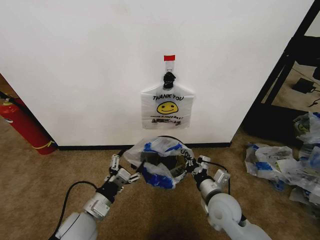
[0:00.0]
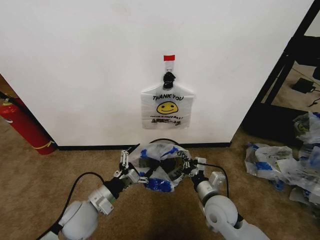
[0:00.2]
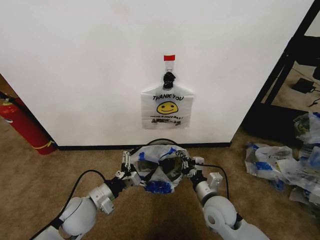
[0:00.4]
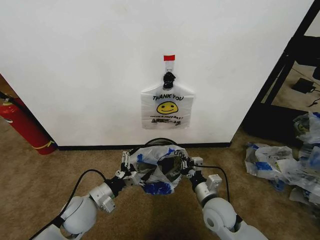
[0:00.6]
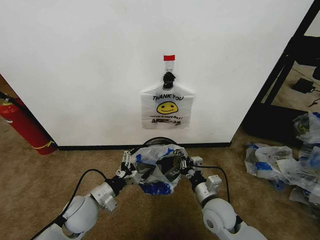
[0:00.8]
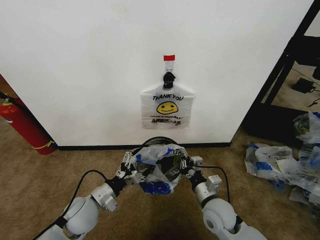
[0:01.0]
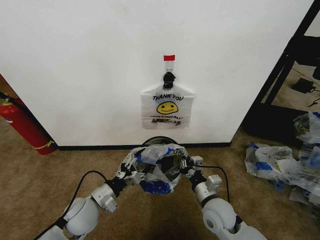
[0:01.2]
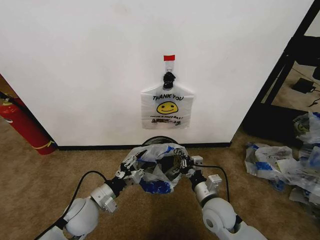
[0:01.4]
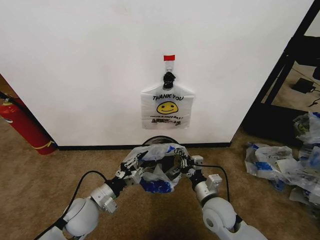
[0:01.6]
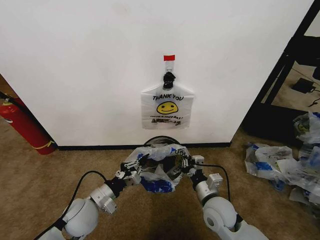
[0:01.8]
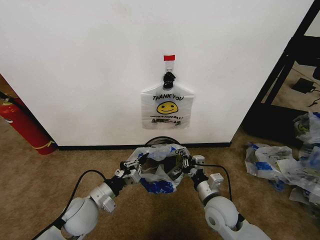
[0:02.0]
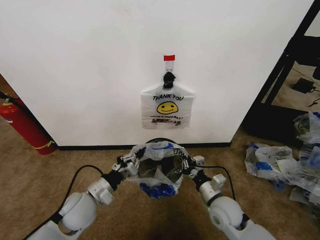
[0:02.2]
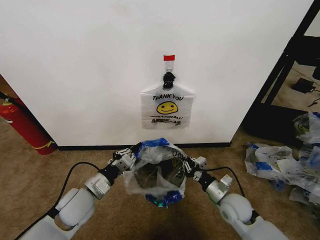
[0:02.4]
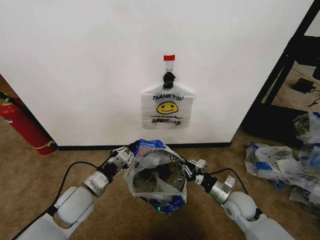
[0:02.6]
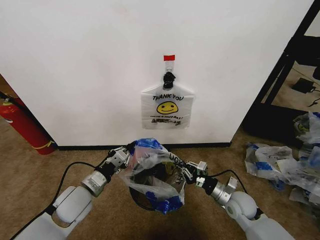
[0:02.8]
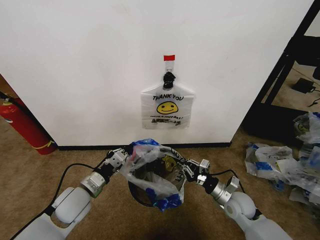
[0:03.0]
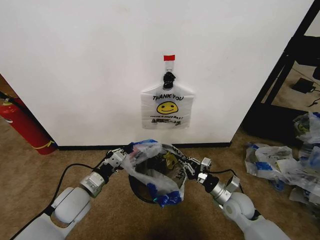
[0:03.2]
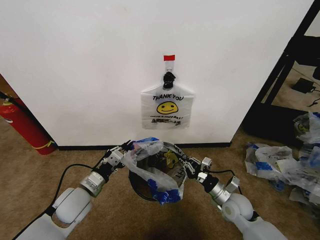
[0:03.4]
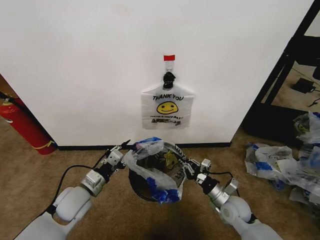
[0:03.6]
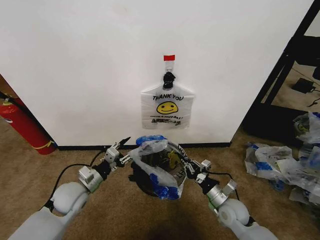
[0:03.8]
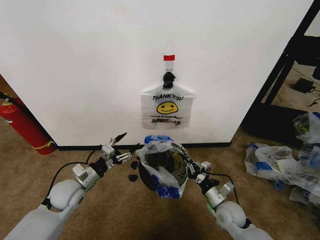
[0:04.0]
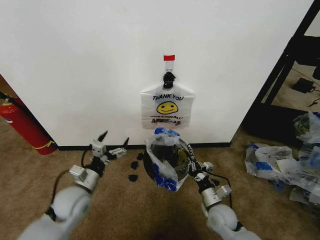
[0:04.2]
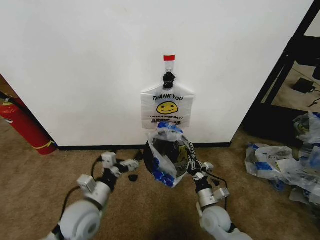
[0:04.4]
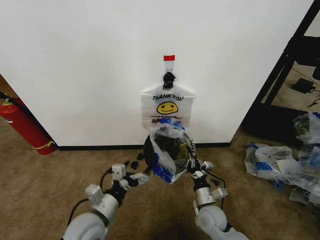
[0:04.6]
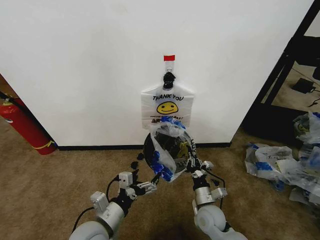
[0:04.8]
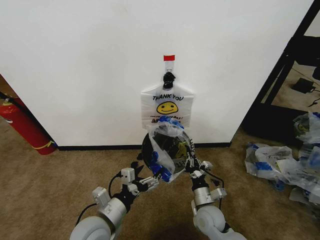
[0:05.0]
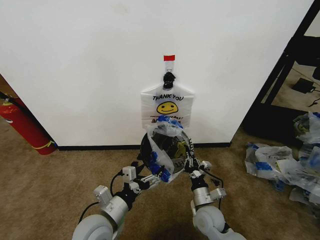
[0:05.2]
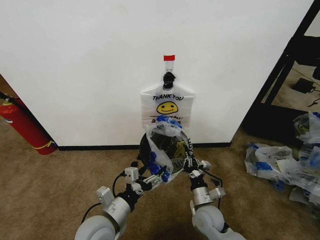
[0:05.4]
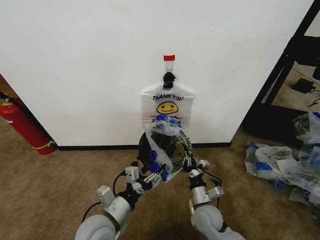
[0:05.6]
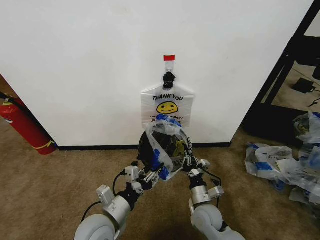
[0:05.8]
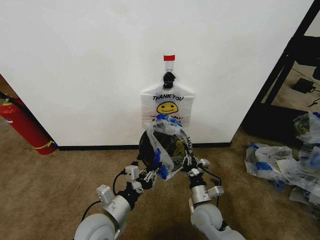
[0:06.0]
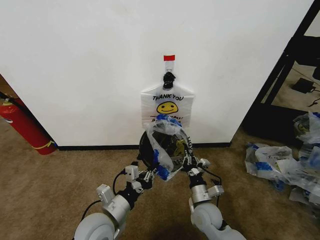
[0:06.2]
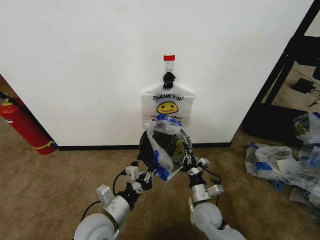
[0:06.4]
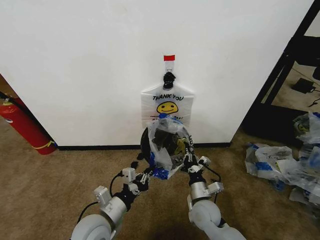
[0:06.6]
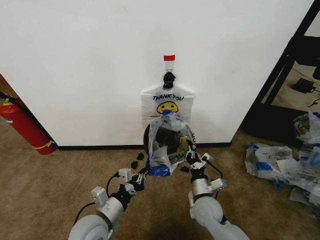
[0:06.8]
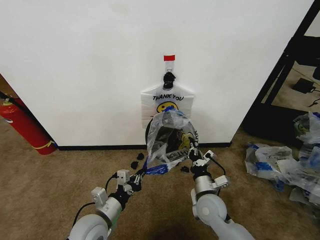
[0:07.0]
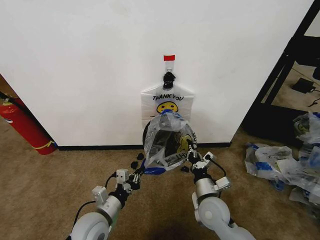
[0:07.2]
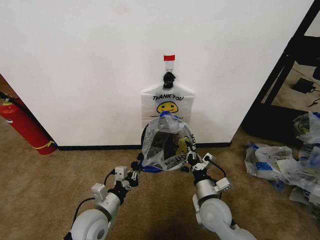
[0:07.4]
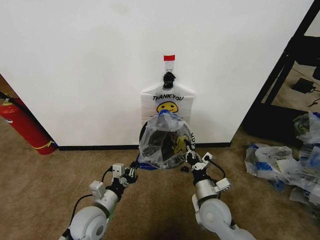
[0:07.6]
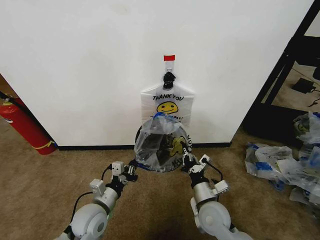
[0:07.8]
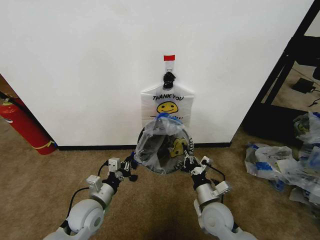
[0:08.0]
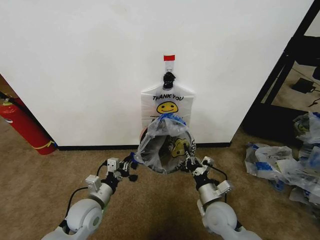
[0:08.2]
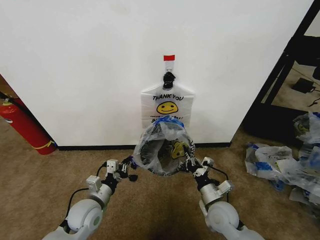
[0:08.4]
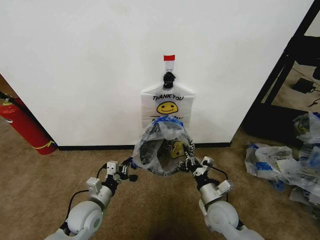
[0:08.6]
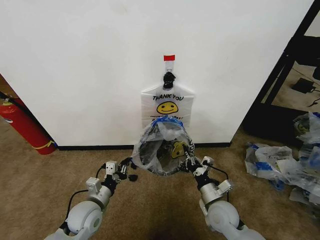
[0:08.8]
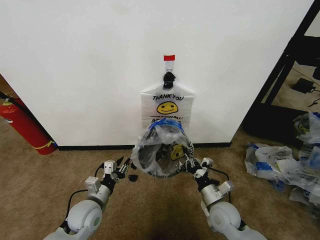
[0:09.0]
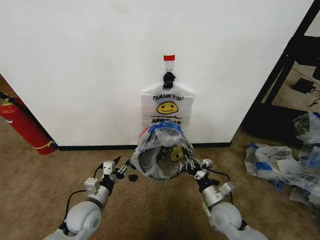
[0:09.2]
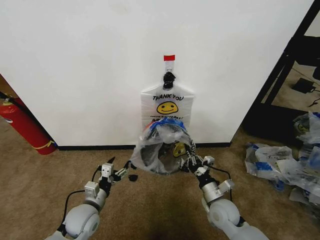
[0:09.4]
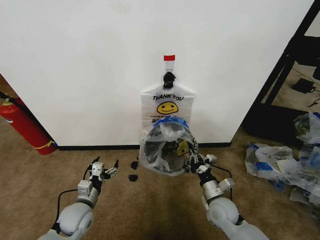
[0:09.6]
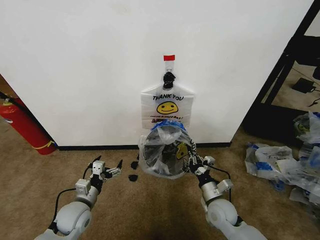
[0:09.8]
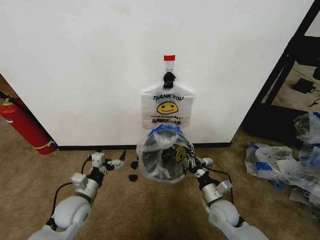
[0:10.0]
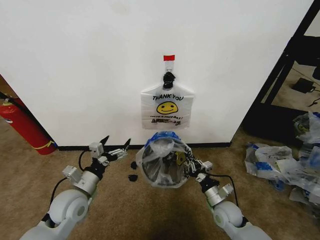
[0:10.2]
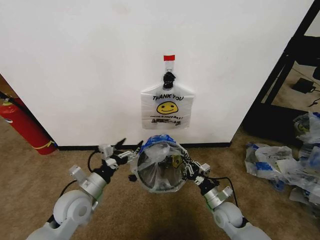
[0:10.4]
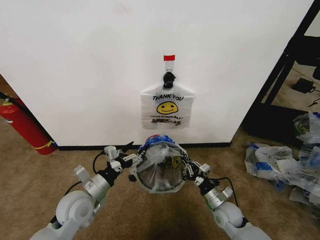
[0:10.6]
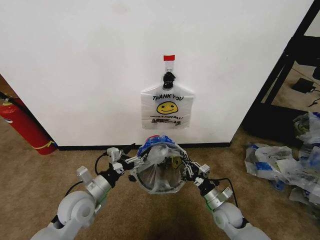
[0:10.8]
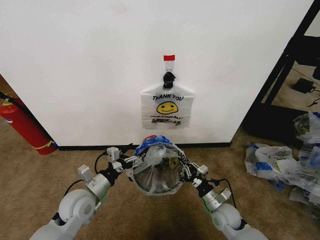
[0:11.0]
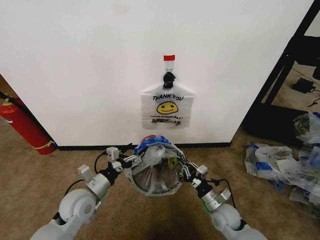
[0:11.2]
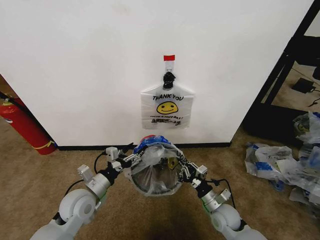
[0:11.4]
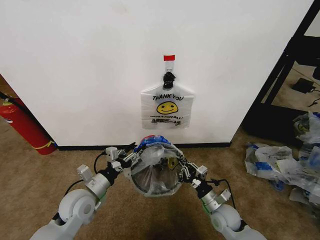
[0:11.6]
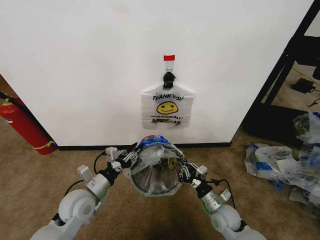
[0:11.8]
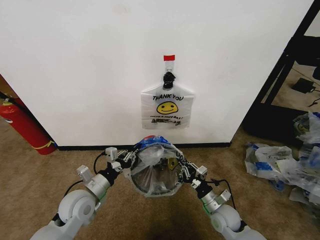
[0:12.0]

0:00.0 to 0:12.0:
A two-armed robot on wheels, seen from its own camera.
Task of the whole recording: Pick up the garbage bag from the wall and place it over the trash bin.
0:00.0 to 0:01.6: The left gripper closes up.
0:01.6 to 0:03.0: The right gripper goes approximately 10 cm to the right.
0:03.0 to 0:04.4: The right gripper travels to the left by some 10 cm, while the left gripper shifts by some 5 cm, and opens its fingers.
0:04.4 to 0:06.0: The left gripper changes place by roughly 5 cm, and closes up.
0:06.0 to 0:07.6: The left gripper shifts by roughly 10 cm, while the right gripper is displaced upward by about 5 cm.
0:07.6 to 0:09.0: The right gripper changes place by approximately 5 cm.
0:09.0 to 0:10.4: The left gripper heads upward, covering about 5 cm, and opens; the right gripper travels downward by some 5 cm.
0:10.4 to 0:12.0: The left gripper closes.

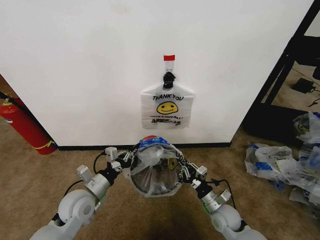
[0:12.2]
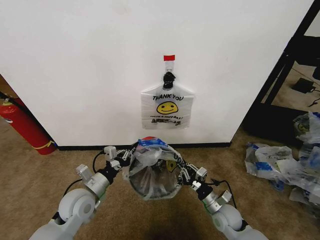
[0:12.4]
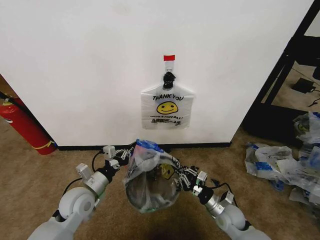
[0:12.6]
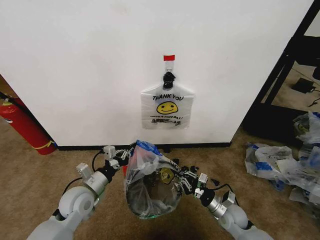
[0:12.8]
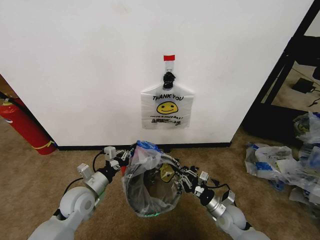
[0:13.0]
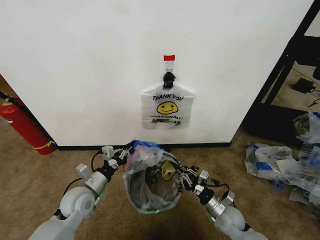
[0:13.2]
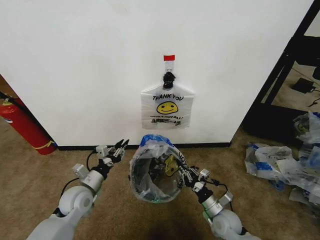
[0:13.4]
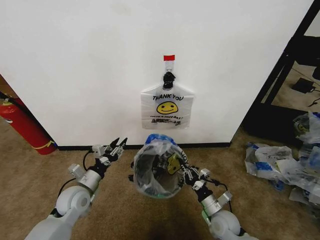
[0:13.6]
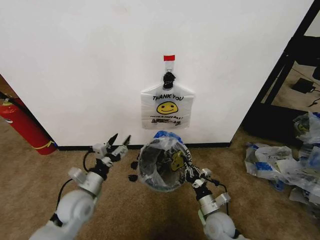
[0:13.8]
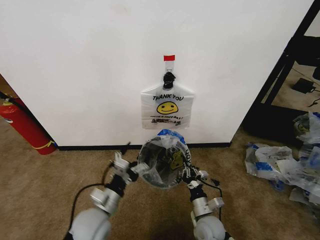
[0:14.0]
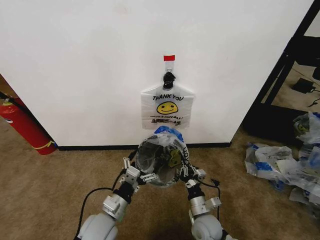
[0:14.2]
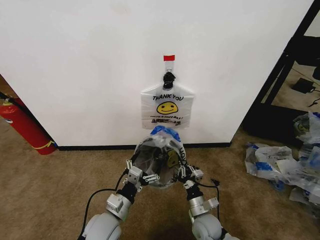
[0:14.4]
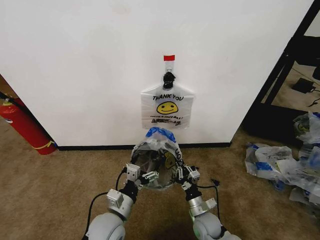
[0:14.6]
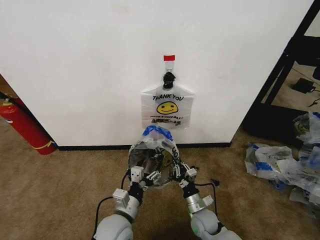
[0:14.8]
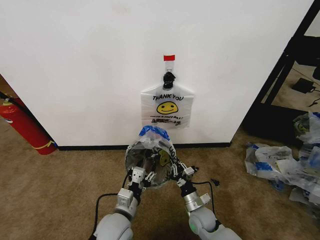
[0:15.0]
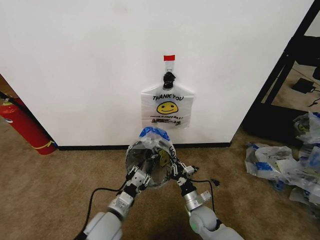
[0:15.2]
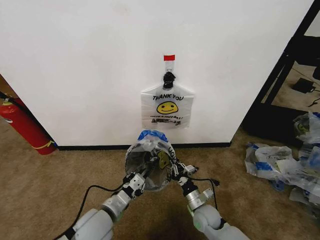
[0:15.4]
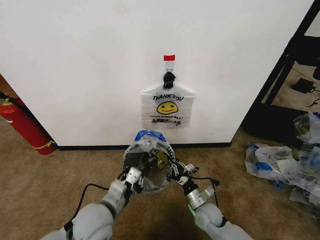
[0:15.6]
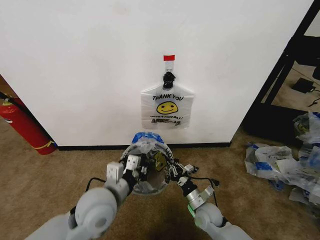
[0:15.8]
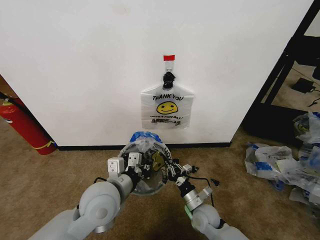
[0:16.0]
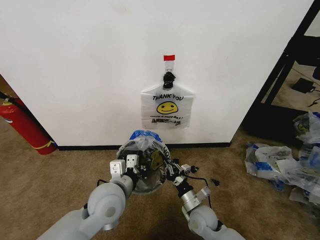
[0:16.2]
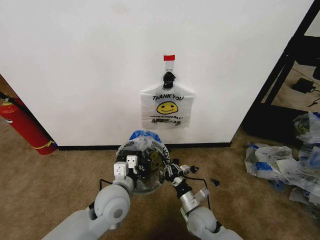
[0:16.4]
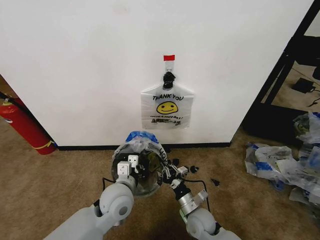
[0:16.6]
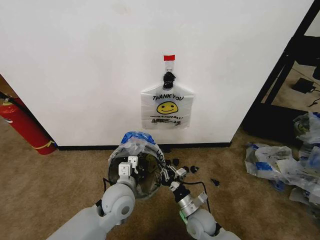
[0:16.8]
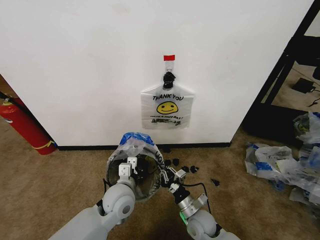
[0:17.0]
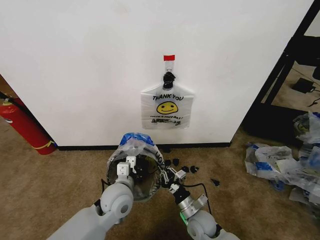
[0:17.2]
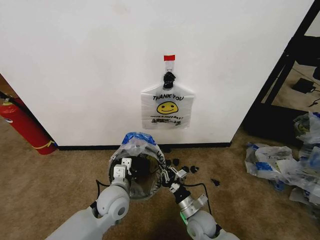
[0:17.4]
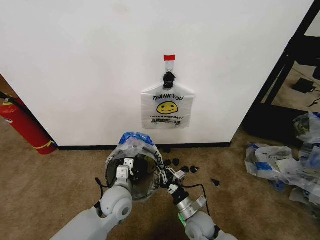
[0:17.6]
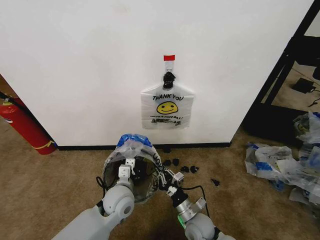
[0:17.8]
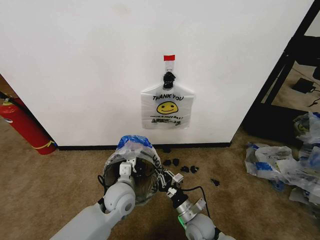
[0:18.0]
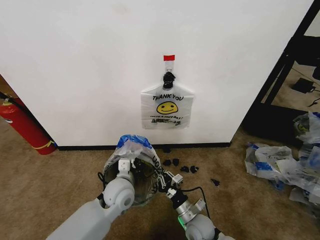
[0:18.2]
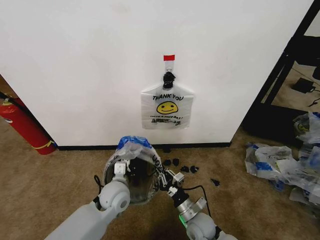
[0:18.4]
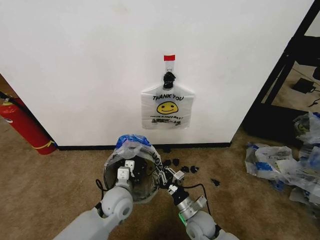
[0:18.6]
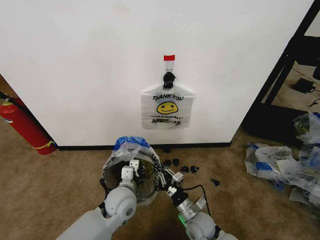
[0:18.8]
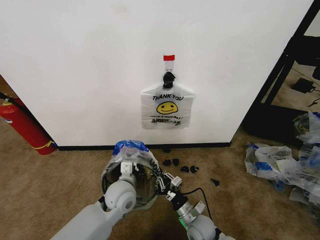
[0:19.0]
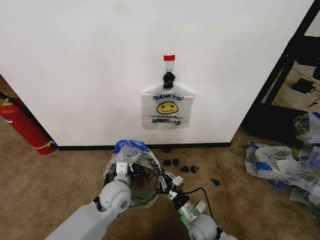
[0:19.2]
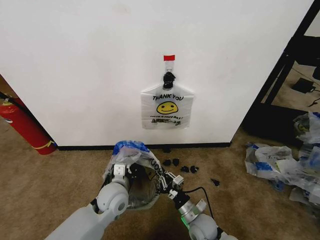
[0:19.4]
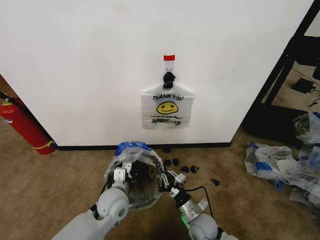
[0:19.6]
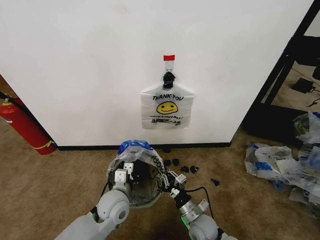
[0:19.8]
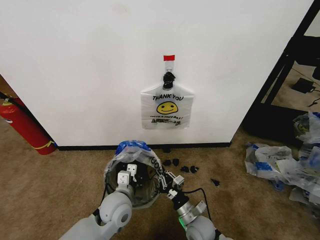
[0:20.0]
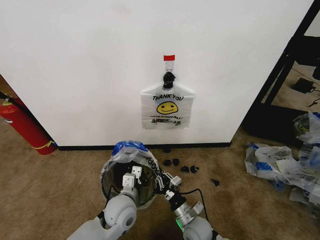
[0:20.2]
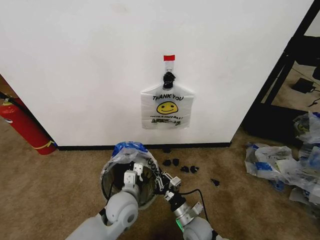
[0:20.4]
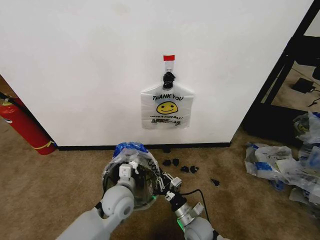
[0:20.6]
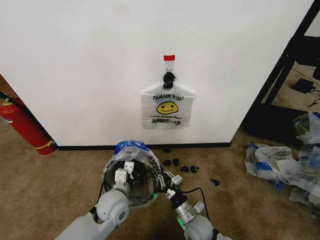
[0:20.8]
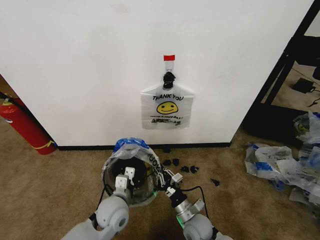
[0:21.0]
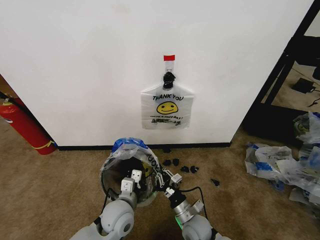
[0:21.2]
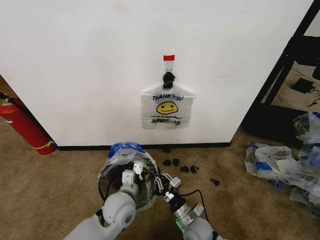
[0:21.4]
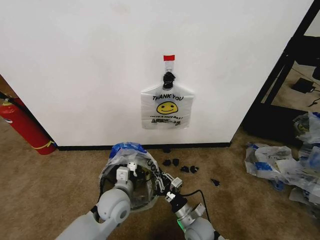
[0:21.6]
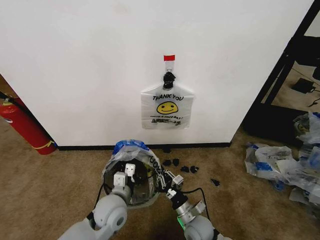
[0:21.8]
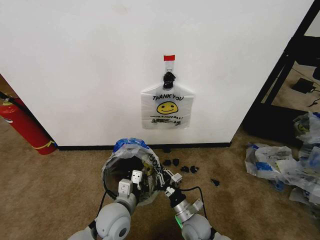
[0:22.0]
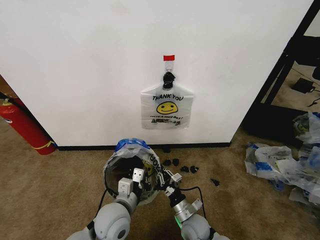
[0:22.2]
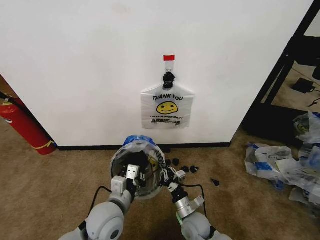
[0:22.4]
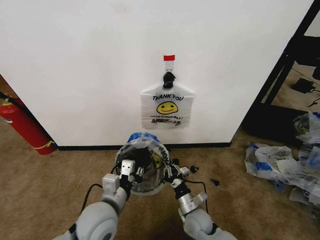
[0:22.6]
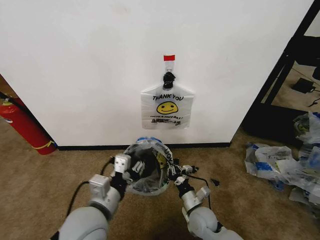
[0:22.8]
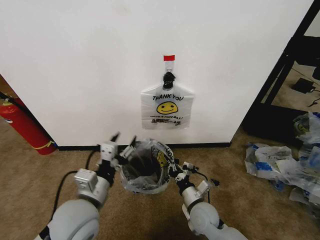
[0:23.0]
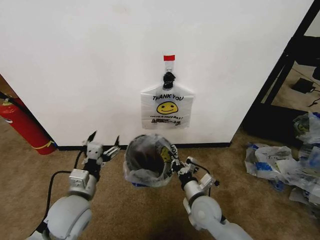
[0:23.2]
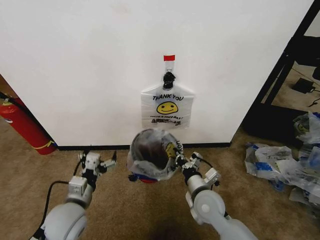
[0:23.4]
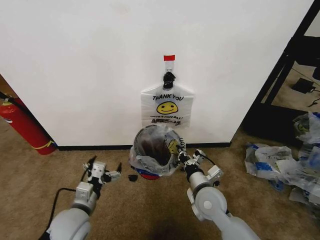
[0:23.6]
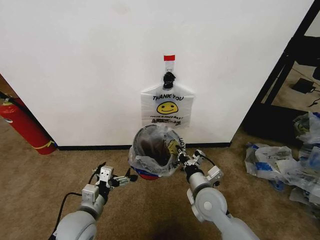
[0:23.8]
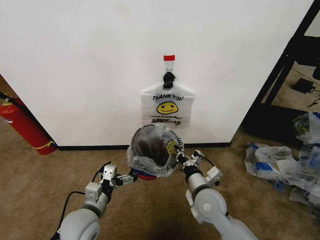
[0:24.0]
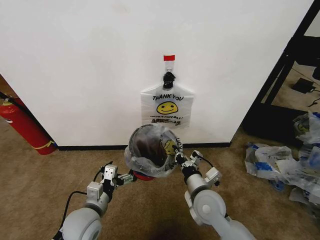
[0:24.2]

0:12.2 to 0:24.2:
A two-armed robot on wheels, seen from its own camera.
Task of the whole recording: Pick up the garbage bag from the wall and place it over the trash bin.
0:12.2 to 0:13.8: The left gripper opens up.
0:13.8 to 0:15.2: The right gripper moves some 5 cm. Meanwhile the left gripper travels to the right and backward by approximately 10 cm, and closes its fingers.
0:15.2 to 0:16.6: The left gripper heads upward and forward, covering approximately 10 cm.
0:16.6 to 0:18.2: The grippers make only small movements.
0:18.2 to 0:19.8: The grippers move only a little.
0:19.8 to 0:21.2: There are only small adjustments of the grippers.
0:21.2 to 0:22.6: The left gripper moves upward, roughly 10 cm.
0:22.6 to 0:24.2: The right gripper travels upward by approximately 15 cm, while the left gripper goes some 10 cm to the left and downward, and opens.
